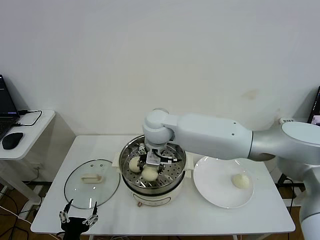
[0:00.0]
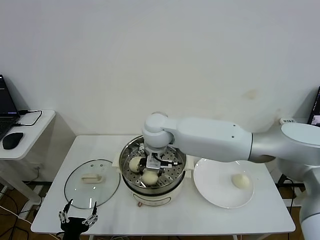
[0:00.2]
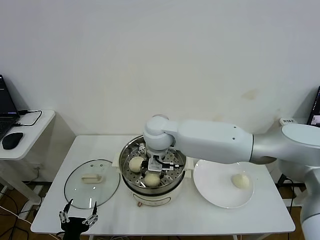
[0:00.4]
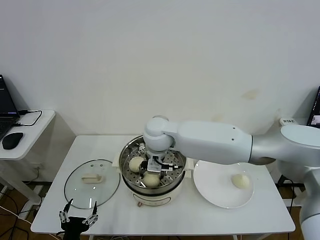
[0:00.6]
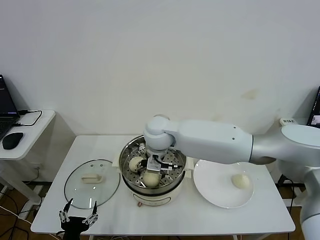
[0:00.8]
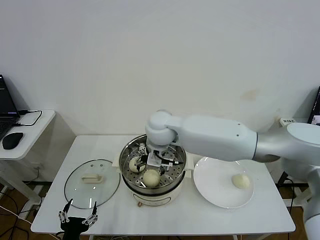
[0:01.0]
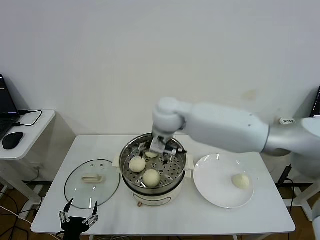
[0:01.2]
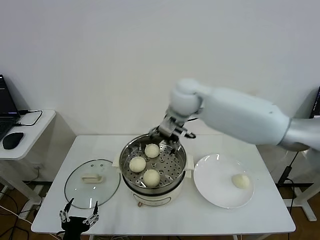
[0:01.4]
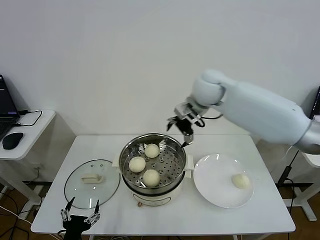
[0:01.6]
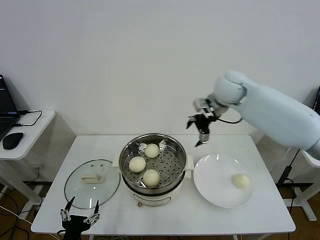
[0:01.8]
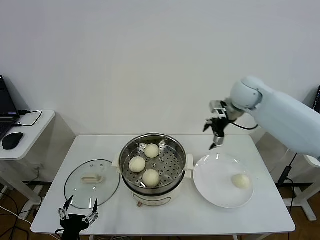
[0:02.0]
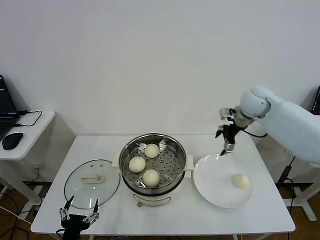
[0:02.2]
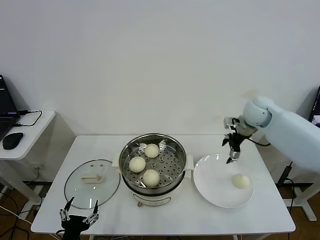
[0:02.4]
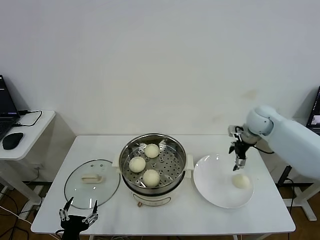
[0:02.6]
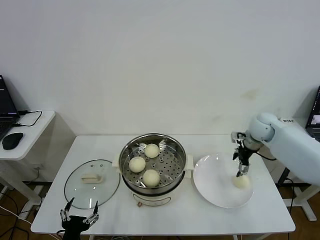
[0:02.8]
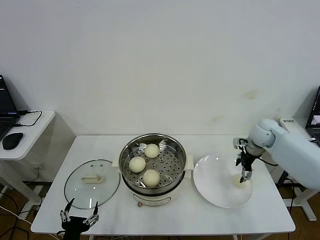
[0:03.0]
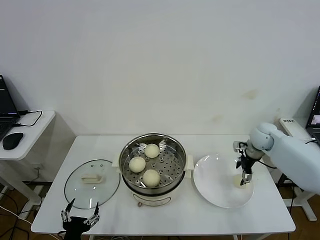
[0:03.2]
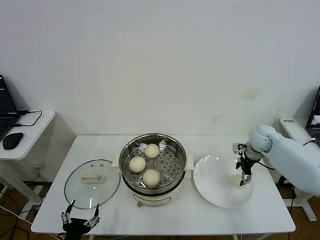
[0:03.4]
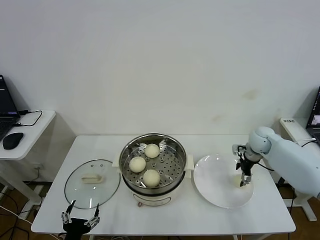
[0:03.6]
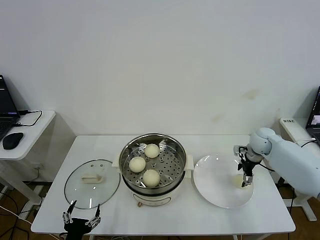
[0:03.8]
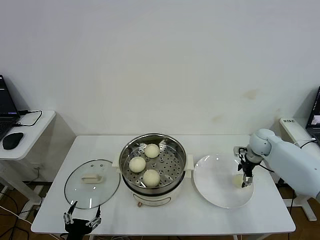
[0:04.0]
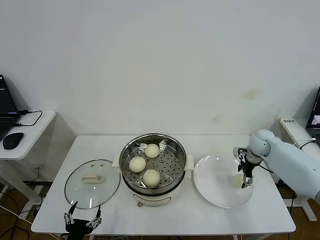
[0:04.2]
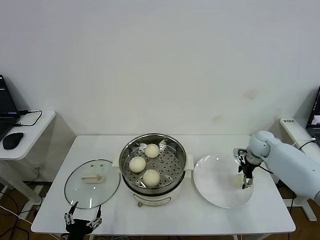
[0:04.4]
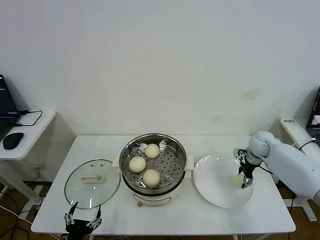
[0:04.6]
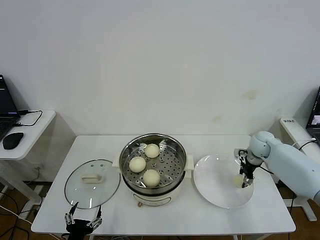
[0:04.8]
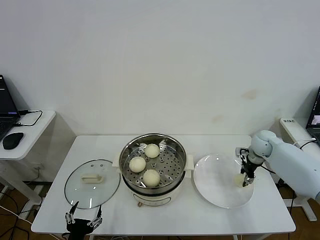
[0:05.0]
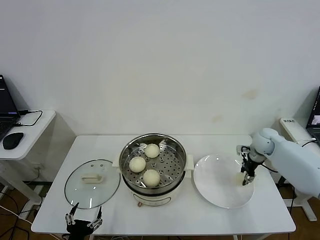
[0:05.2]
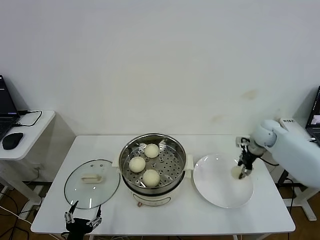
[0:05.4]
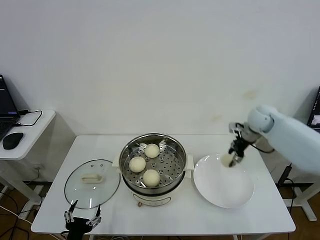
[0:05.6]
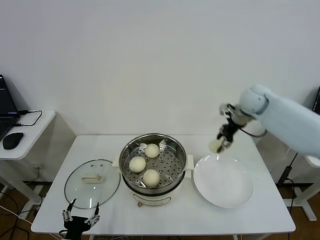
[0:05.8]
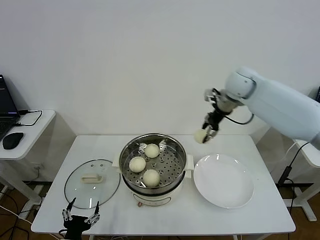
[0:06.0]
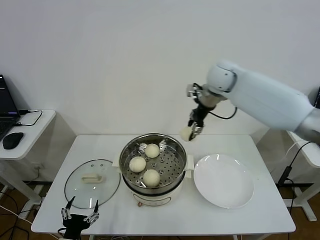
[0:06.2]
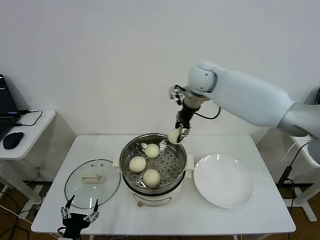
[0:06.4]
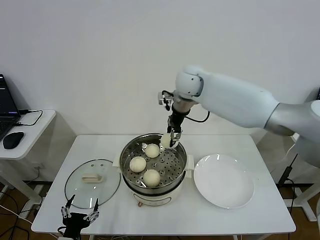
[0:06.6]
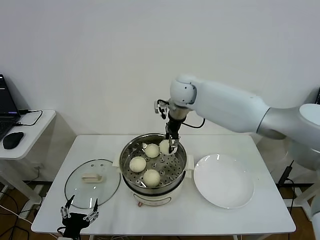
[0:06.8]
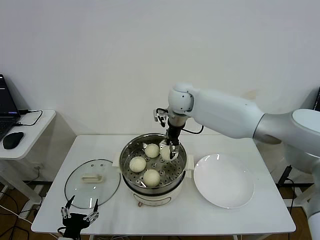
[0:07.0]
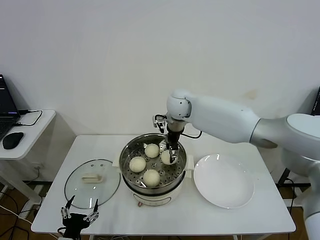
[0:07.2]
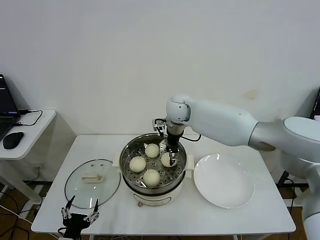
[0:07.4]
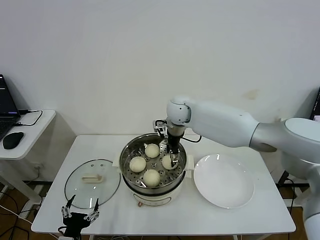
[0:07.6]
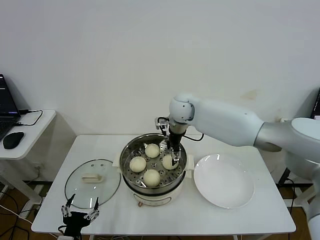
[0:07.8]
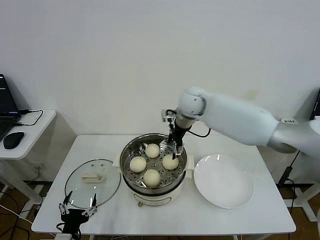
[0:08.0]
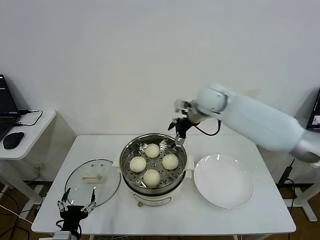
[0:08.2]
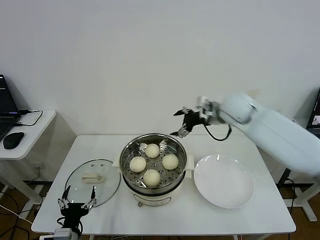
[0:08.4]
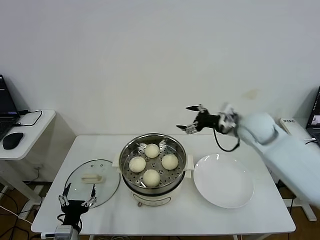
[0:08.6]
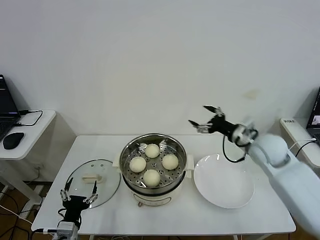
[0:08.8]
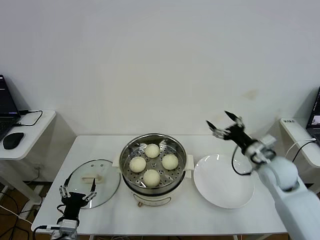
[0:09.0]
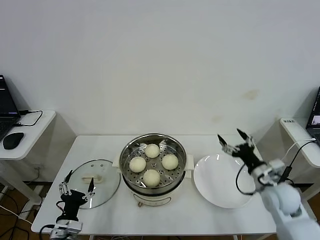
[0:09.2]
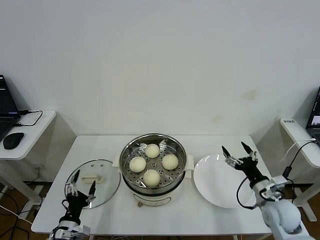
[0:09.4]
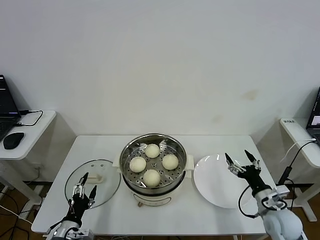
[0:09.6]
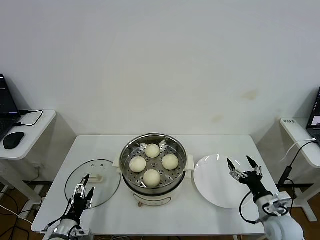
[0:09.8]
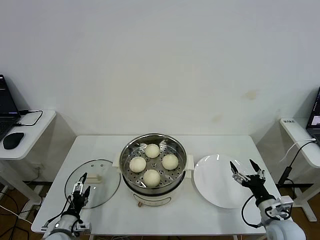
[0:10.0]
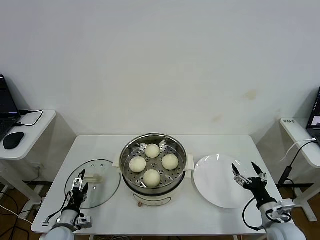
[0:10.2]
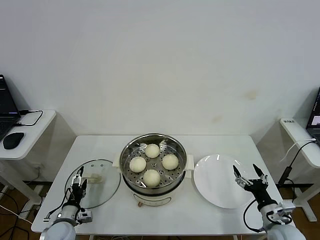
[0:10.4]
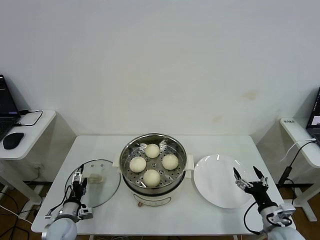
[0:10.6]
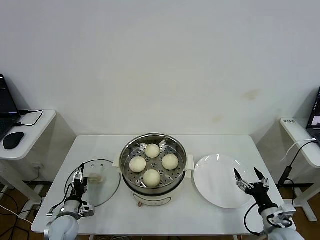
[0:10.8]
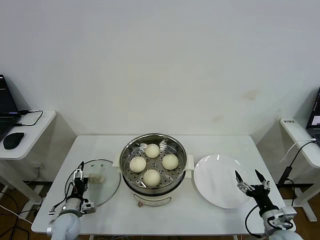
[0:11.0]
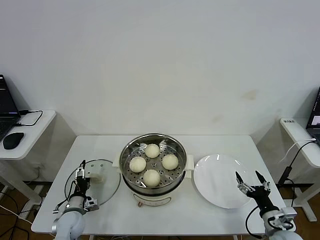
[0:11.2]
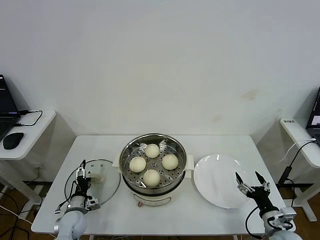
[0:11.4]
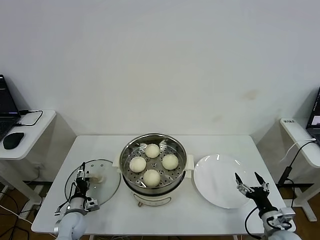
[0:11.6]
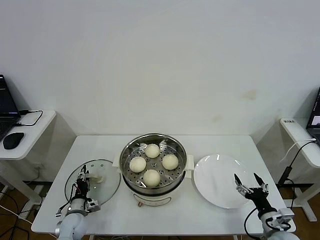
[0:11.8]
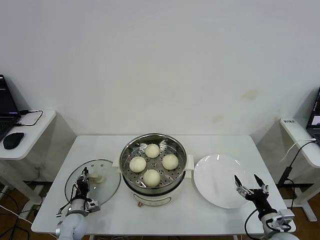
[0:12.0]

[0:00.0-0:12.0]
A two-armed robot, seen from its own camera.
Step, 0:01.0 to 0:04.8: Grasp the baozi in the plate with right gripper.
Step, 0:05.2 to 0:07.8: Place the baozi on the steamer with right gripper.
0:00.0 to 0:01.6: The right gripper shifts some 20 cm to the right, upward and forward, and opens.
0:01.6 to 0:03.0: The right gripper is displaced to the right and downward by roughly 30 cm.
0:03.0 to 0:04.4: The right gripper moves downward, roughly 5 cm.
0:04.4 to 0:06.0: The right gripper shifts approximately 25 cm upward and to the left, and closes up.
0:06.0 to 0:07.6: The right gripper moves to the left and downward, some 20 cm, and opens its fingers.
0:07.6 to 0:09.0: The right gripper moves to the right and backward, approximately 35 cm, and opens its fingers; the left gripper heads forward, covering approximately 5 cm.
0:09.0 to 0:10.4: The right gripper heads backward and downward, covering roughly 20 cm. The left gripper goes approximately 10 cm forward, downward and to the left.
0:10.4 to 0:12.0: The left gripper shifts by some 5 cm, and closes up.

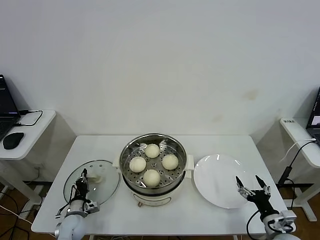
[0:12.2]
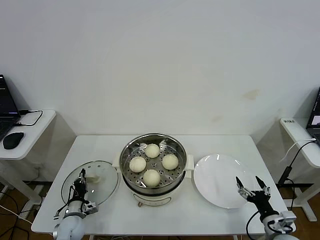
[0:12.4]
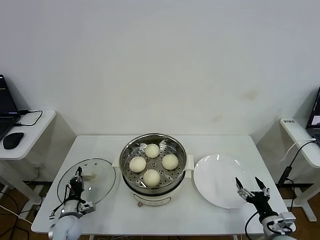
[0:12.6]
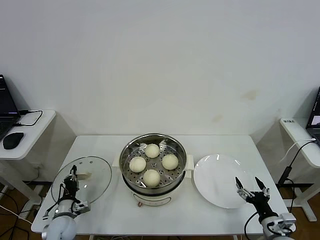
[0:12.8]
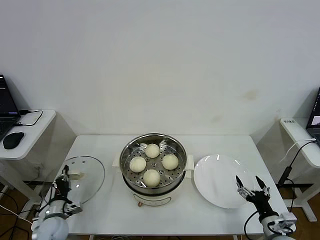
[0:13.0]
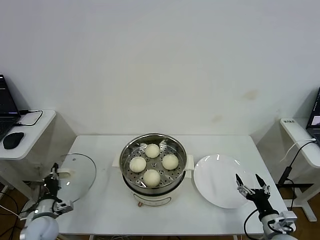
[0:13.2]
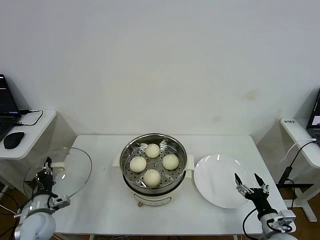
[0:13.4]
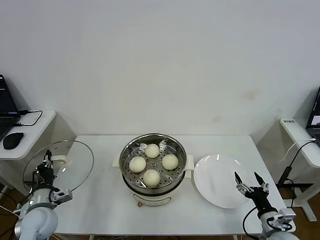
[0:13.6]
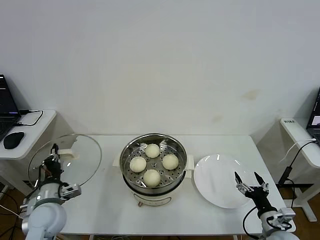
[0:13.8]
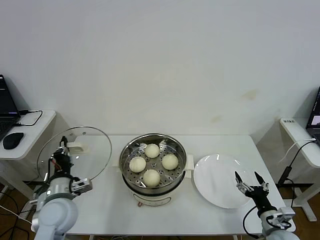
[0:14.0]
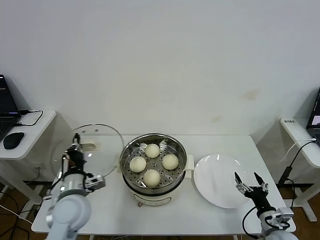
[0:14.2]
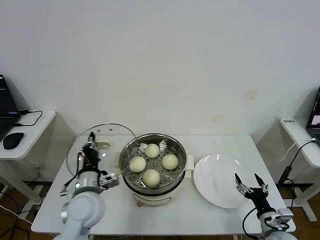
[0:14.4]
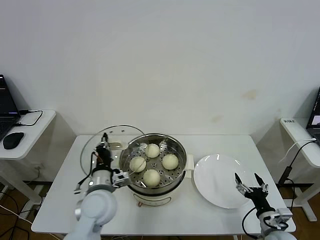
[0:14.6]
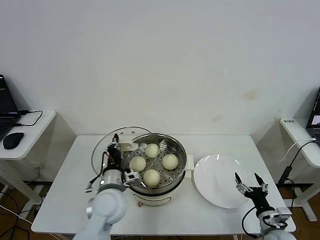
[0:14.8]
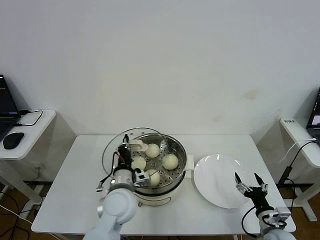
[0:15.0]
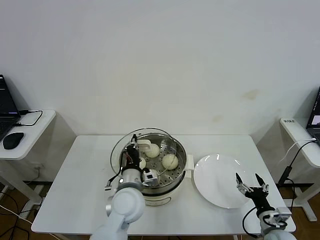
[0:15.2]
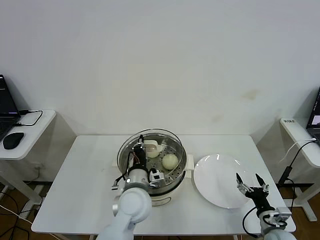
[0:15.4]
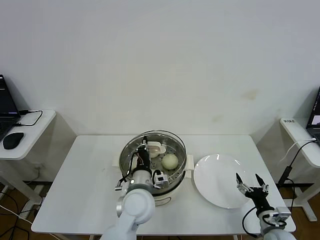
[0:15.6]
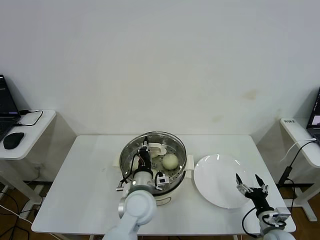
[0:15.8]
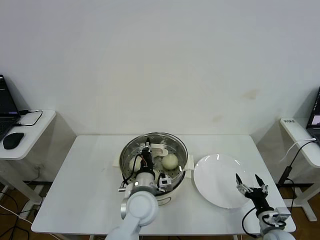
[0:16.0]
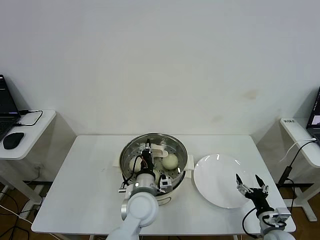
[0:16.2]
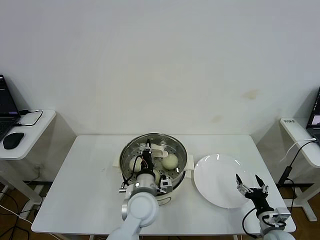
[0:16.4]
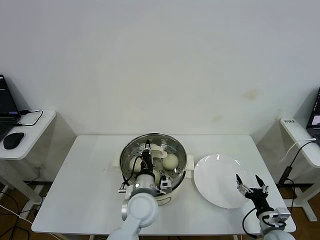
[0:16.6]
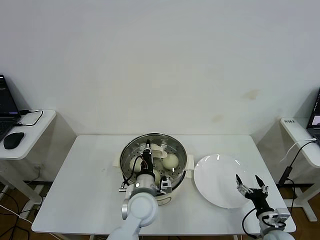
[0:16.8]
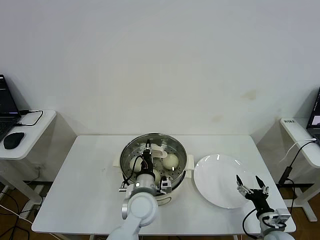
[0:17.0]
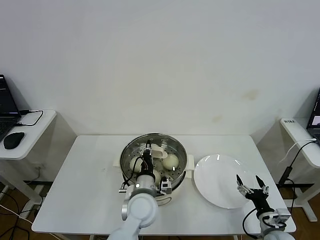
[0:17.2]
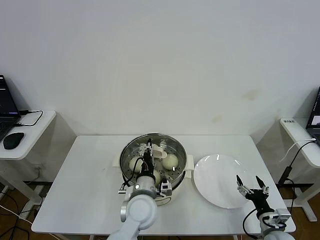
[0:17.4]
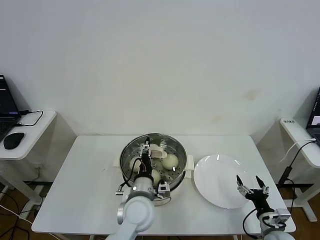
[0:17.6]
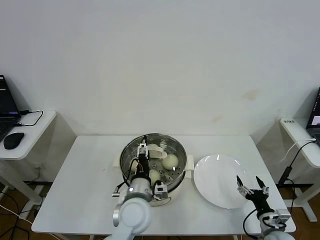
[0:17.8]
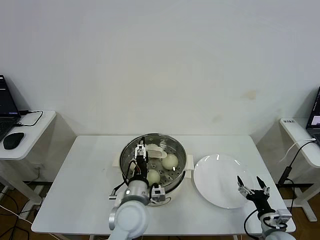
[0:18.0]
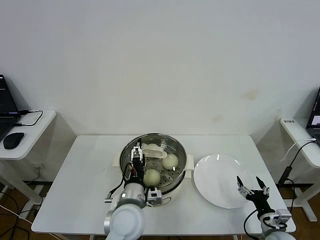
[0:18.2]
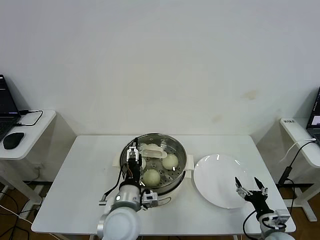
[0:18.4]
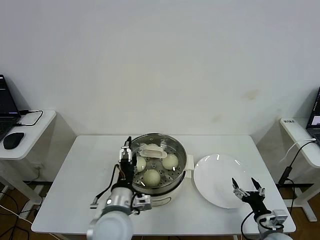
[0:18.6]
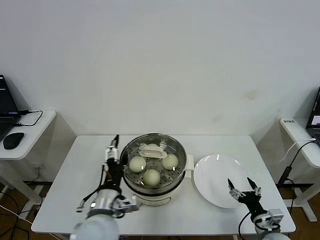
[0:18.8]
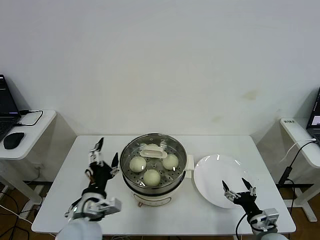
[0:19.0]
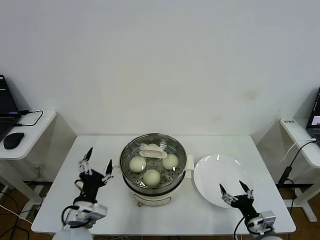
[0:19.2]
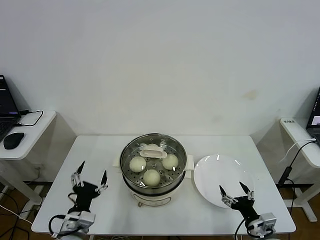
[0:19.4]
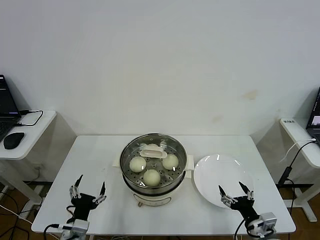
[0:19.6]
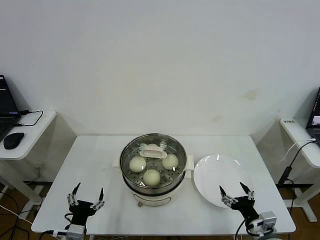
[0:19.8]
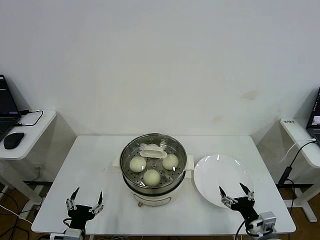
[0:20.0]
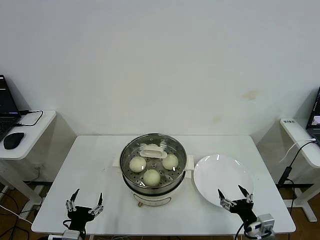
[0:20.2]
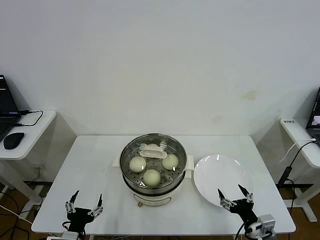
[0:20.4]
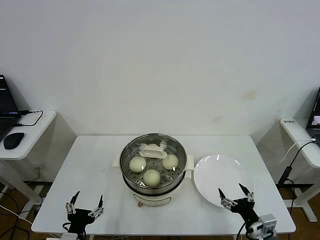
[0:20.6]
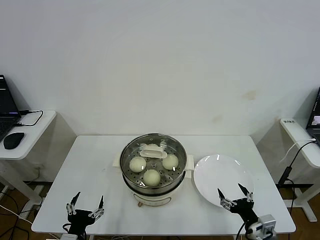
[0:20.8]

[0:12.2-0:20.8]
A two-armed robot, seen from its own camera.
Step, 0:12.4 to 0:17.4: Place the pot lid on the steamer with left gripper.
0:12.2 to 0:13.6: The left gripper shifts some 15 cm upward.
0:13.6 to 0:15.0: The left gripper shifts some 25 cm to the right.
0:15.0 to 0:16.6: The left gripper travels to the right by roughly 5 cm.
0:16.6 to 0:18.0: The left gripper opens up.
0:18.0 to 0:19.4: The left gripper travels to the left and backward by roughly 20 cm. The right gripper moves to the left, approximately 5 cm.
0:19.4 to 0:20.8: The left gripper is displaced backward by approximately 5 cm.
